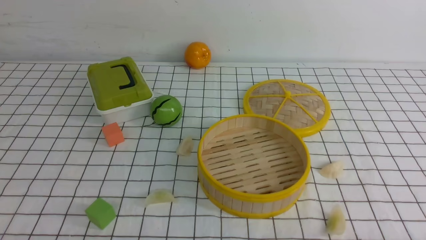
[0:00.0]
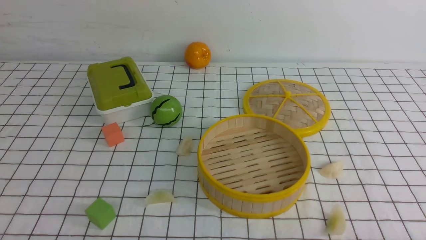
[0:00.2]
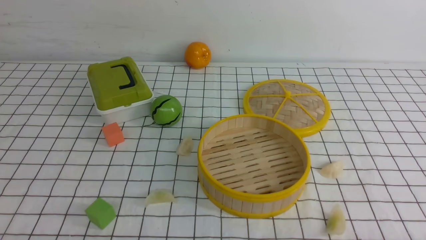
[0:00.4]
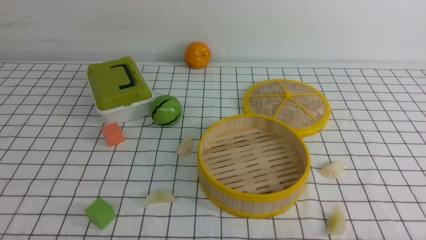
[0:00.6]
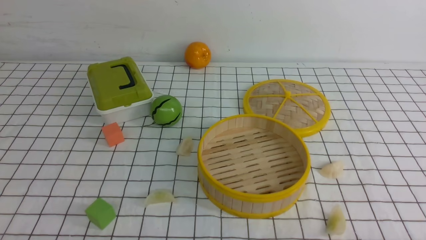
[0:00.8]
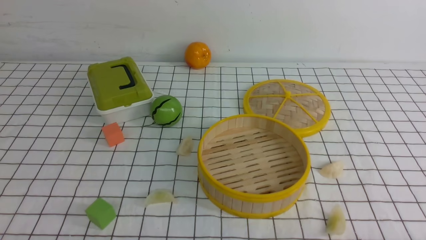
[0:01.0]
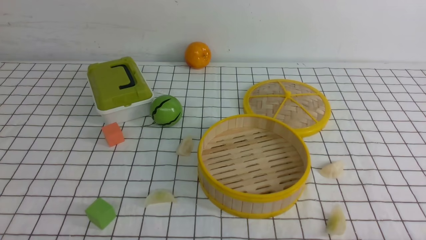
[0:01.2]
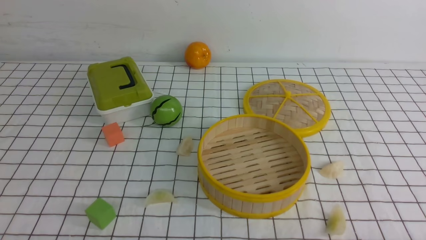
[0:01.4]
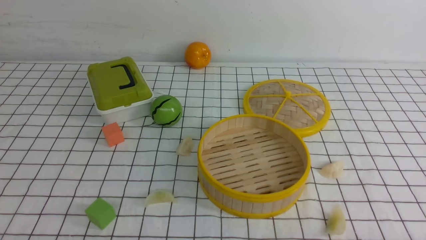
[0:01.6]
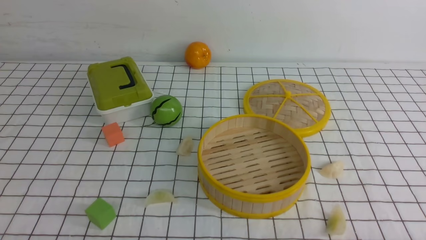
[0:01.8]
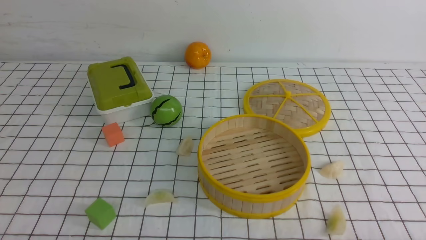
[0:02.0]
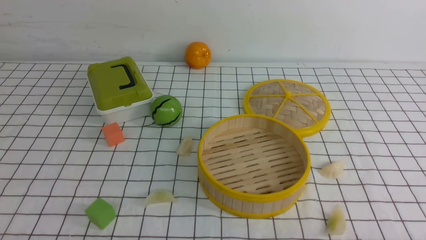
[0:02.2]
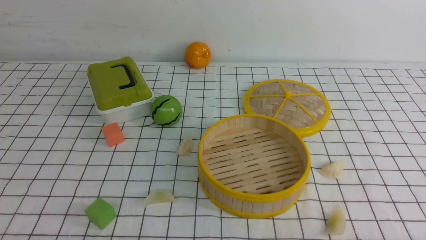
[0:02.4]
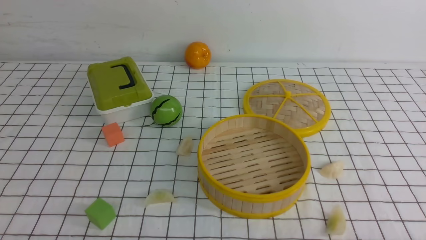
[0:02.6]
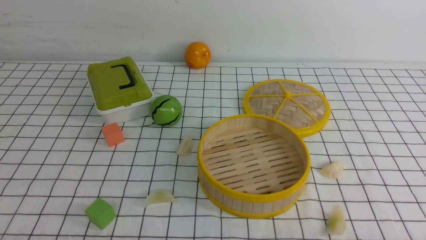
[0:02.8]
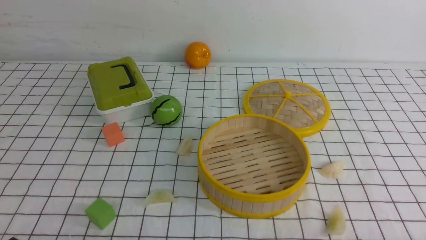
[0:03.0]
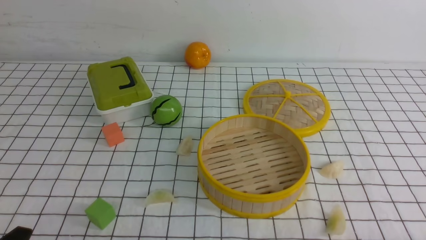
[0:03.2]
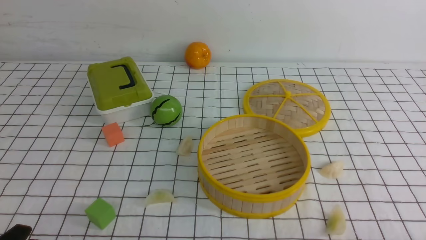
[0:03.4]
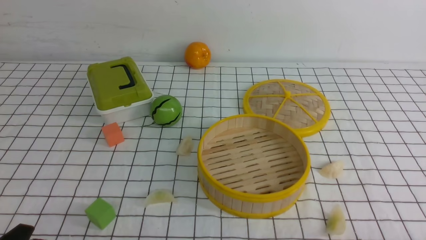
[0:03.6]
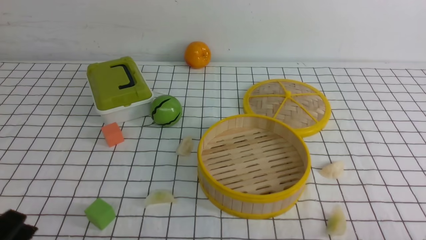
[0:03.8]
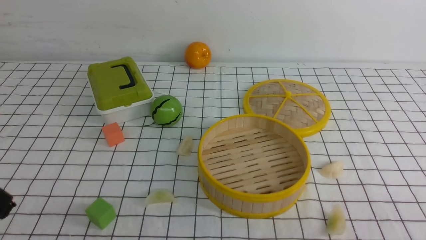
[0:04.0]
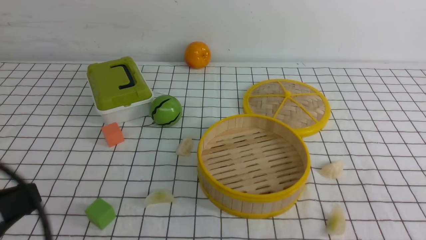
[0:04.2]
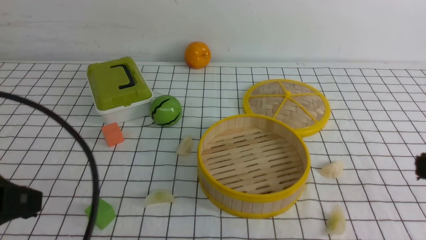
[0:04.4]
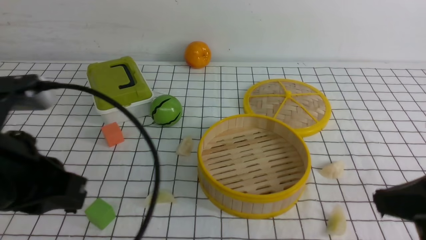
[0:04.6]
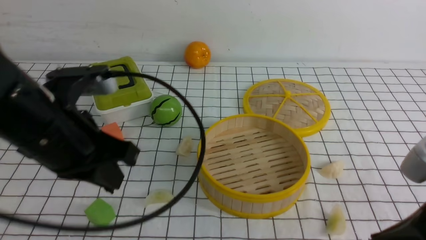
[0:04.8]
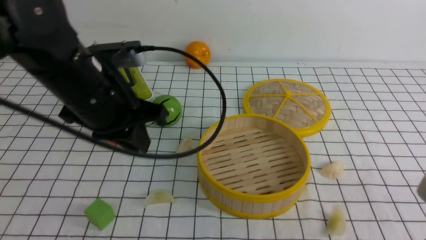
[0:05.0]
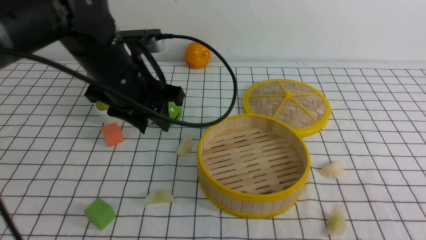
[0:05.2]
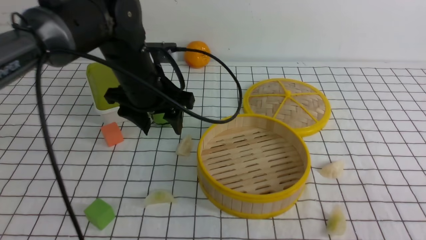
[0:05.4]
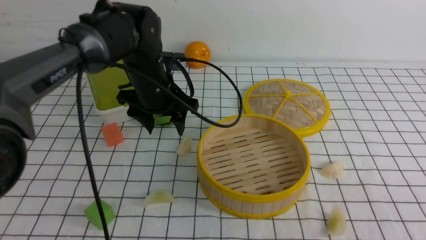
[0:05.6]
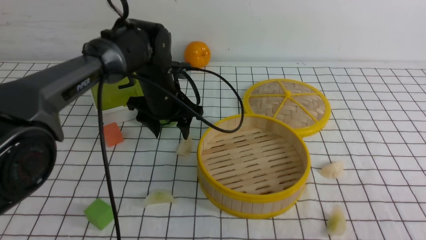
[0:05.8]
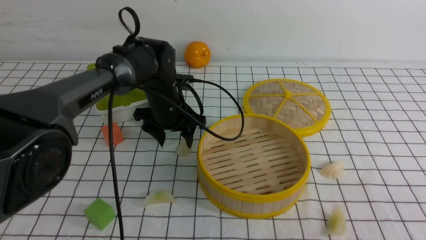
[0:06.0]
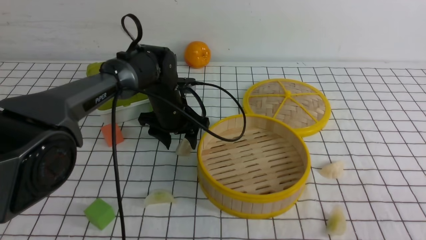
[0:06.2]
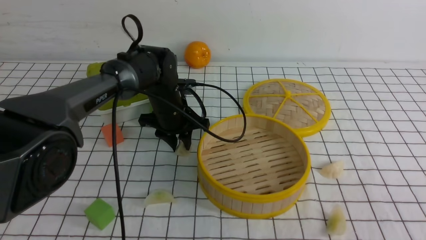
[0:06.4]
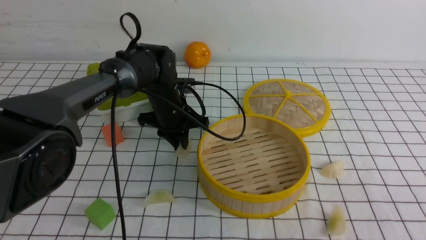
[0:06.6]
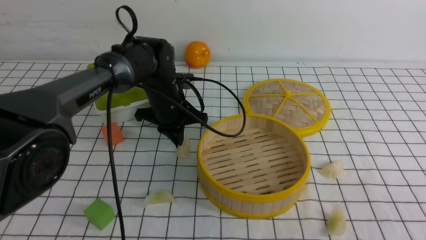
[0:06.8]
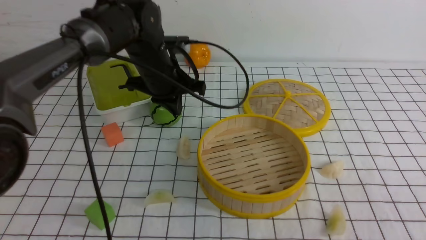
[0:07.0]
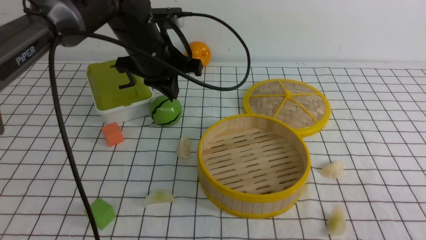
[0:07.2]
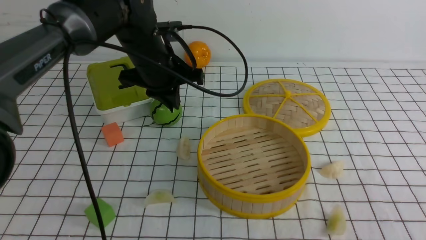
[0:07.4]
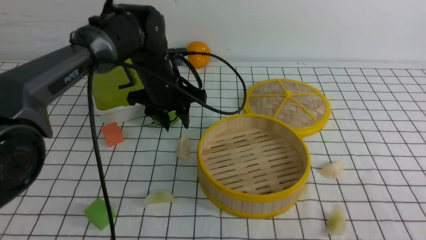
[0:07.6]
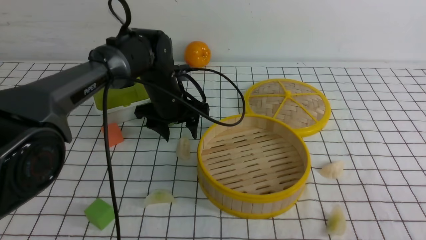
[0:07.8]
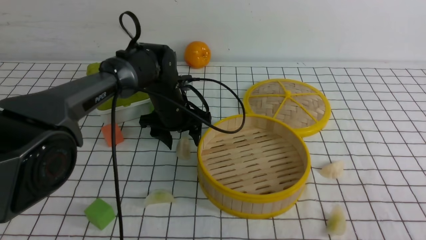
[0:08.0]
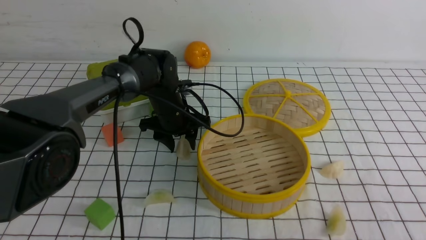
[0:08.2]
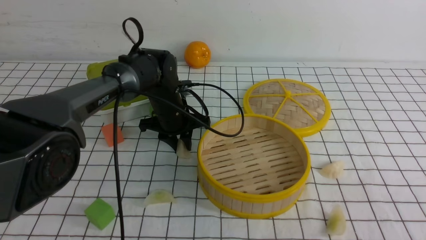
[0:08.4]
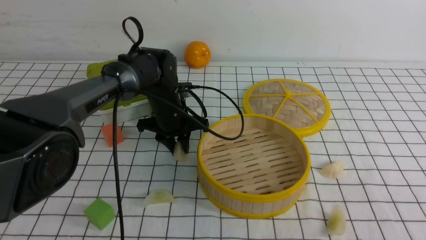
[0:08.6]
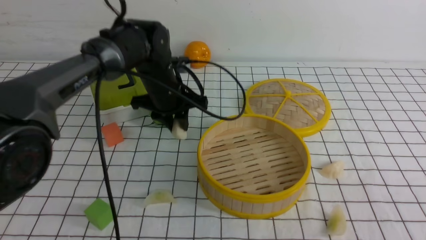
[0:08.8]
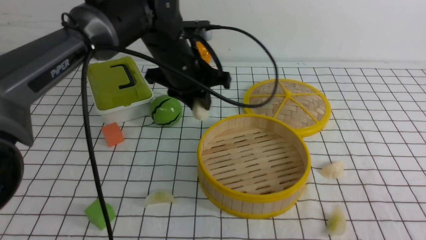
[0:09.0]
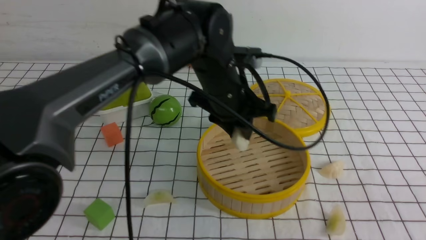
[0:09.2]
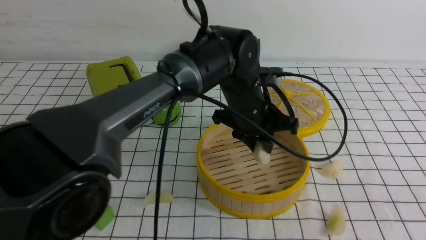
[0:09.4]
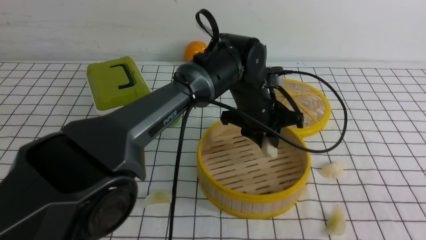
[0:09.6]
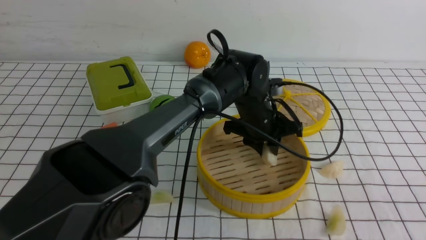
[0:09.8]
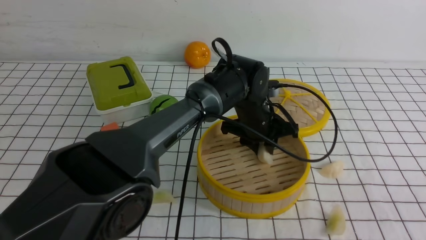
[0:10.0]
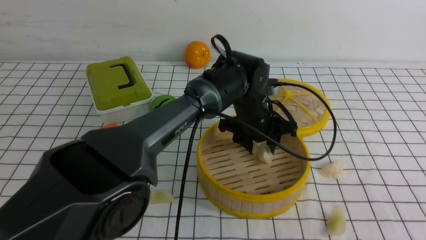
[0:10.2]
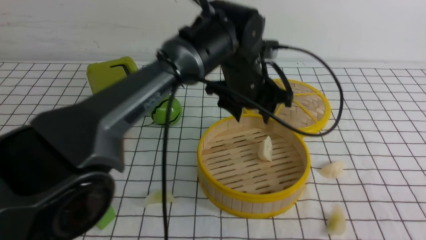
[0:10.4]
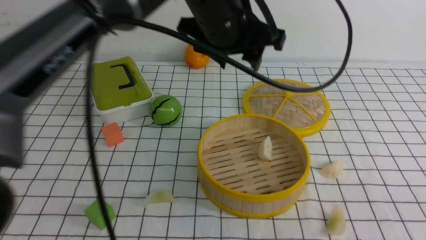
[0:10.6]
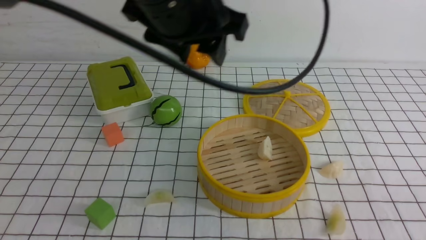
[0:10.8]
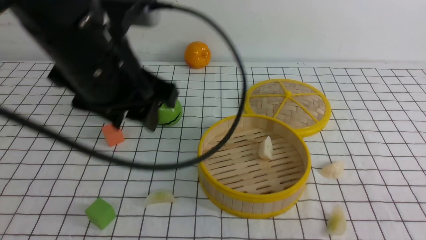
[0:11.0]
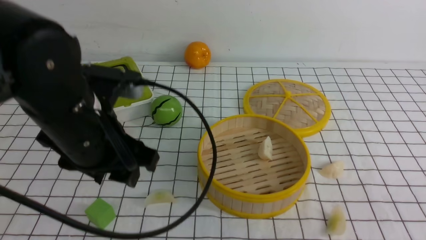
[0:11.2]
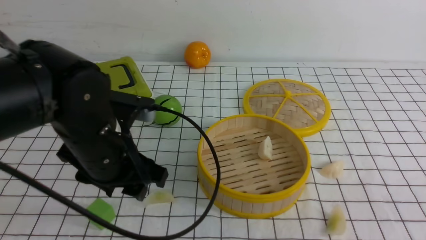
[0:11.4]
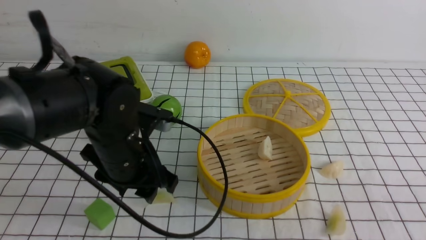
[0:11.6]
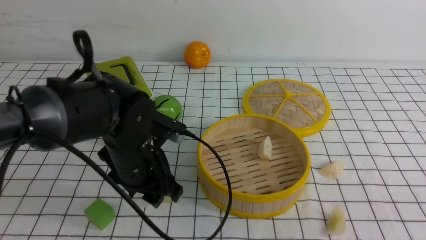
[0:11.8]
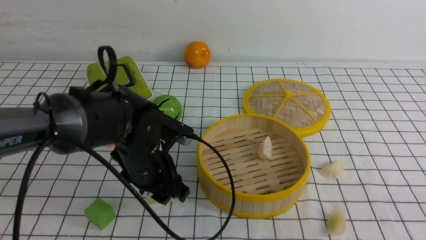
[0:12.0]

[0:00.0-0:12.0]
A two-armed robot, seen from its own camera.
Task of the whole recording: put the dumplings into the steamer on the table with the white tablecloth.
Step, 0.0 to 9.0 s: use the left arm to grab a dumpling.
Step, 9.2 to 10.6 s: use the left arm to put the dumpling into the steamer.
0.0 to 1.6 s: Both grippers stay about where they are.
3.0 to 4.4 s: The left gripper is displaced upward and forward by some 20 cm, and closes.
4.4 to 6.0 s: The left gripper heads forward, downward and to the right, covering some 40 cm, and opens up.
6.0 to 7.6 s: The left gripper heads upward, covering about 5 cm, and closes, then reopens.
7.6 to 9.0 s: The left gripper shifts some 5 cm to the right, and travels downward and back again, some 5 cm each way.
9.0 to 10.4 s: The left gripper goes approximately 5 cm to the right, travels downward and back again, approximately 10 cm each way, and opens up, while the right gripper changes place by roughly 5 cm.
10.4 to 12.0 s: The left gripper goes about 20 cm to the left, downward and backward.

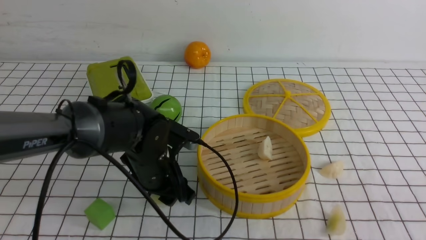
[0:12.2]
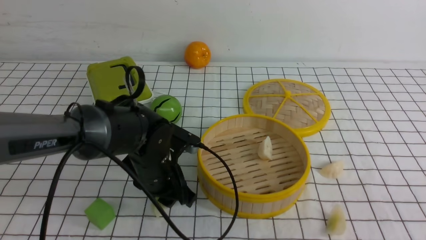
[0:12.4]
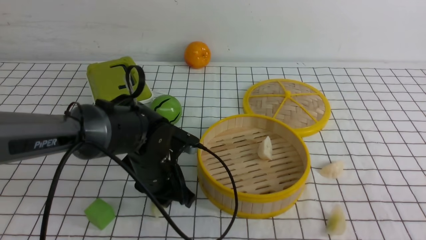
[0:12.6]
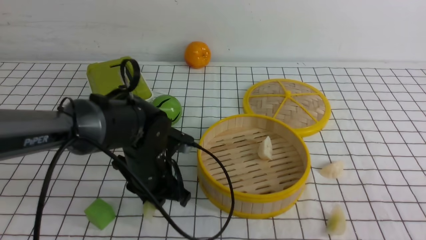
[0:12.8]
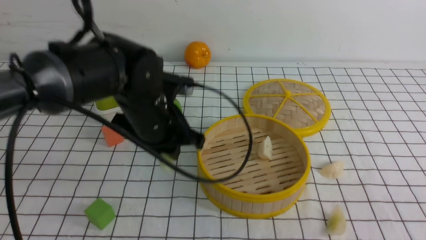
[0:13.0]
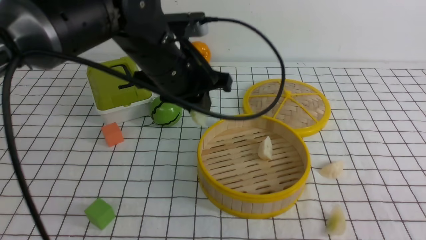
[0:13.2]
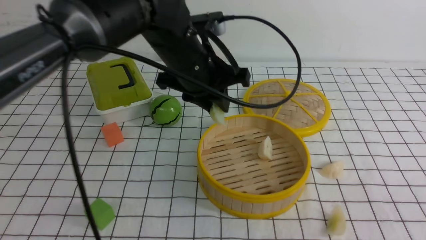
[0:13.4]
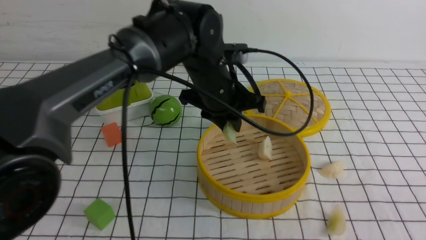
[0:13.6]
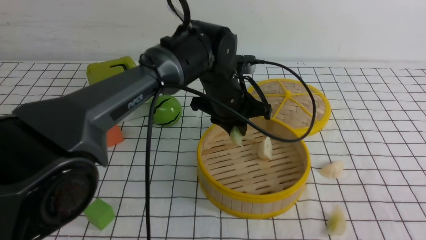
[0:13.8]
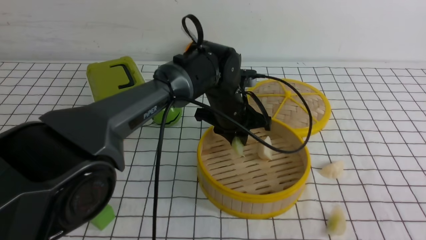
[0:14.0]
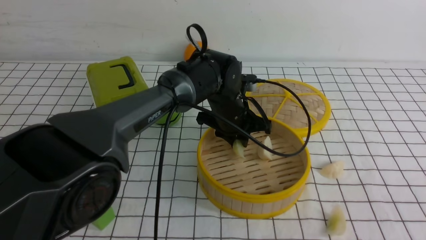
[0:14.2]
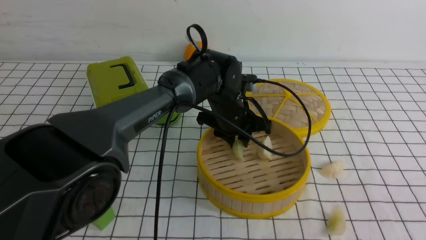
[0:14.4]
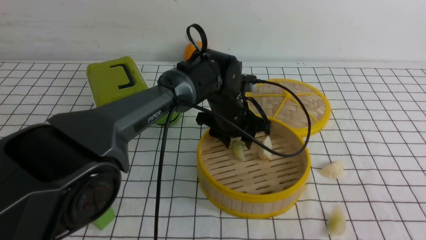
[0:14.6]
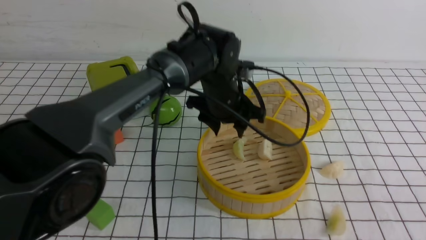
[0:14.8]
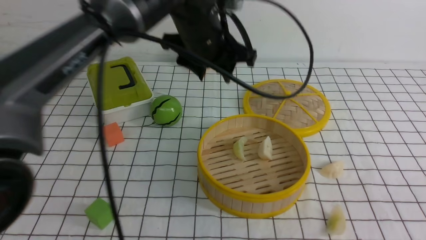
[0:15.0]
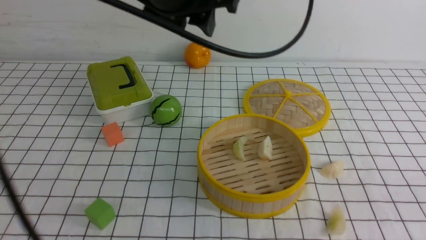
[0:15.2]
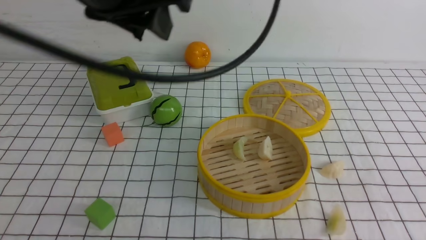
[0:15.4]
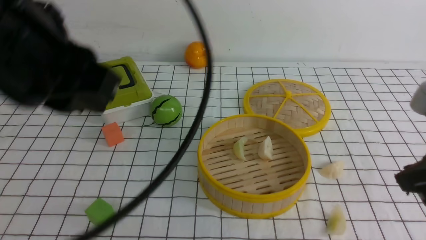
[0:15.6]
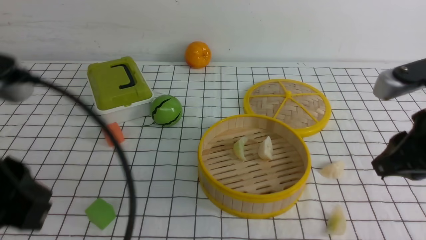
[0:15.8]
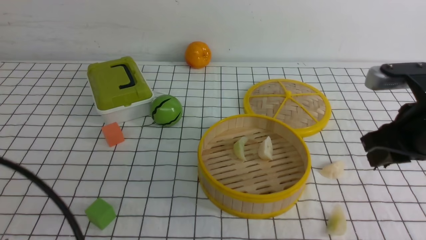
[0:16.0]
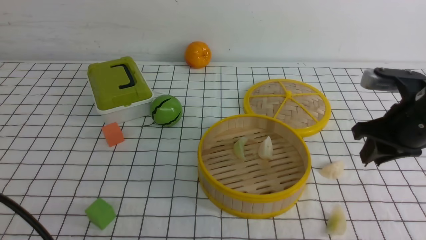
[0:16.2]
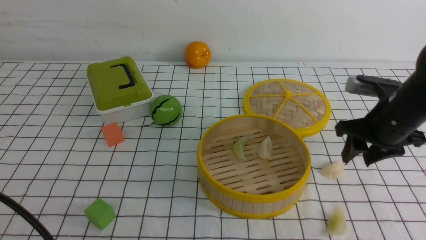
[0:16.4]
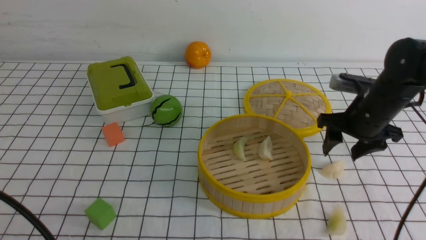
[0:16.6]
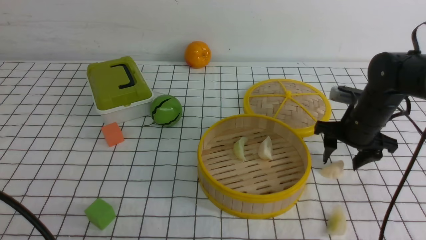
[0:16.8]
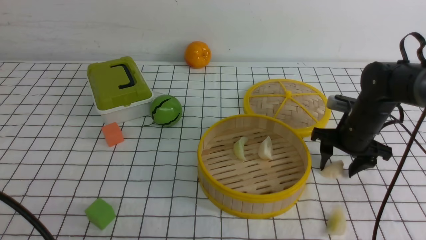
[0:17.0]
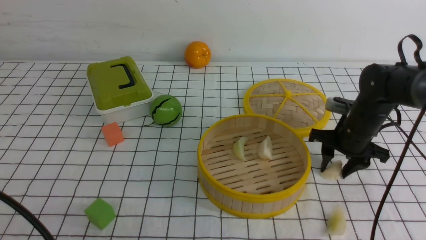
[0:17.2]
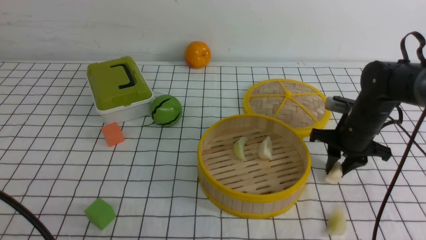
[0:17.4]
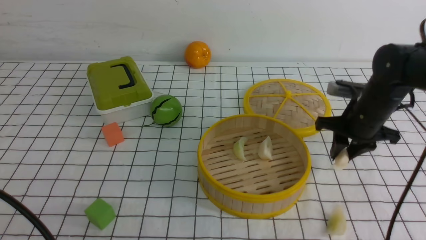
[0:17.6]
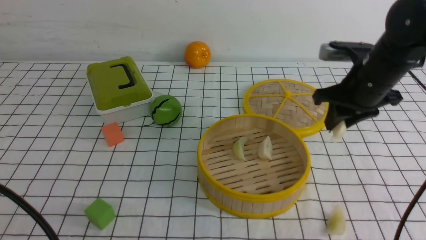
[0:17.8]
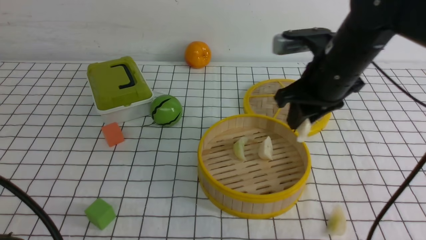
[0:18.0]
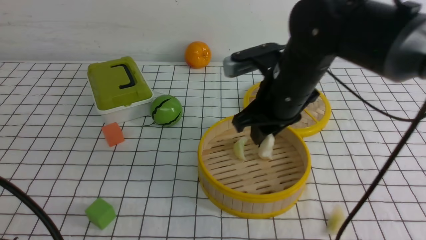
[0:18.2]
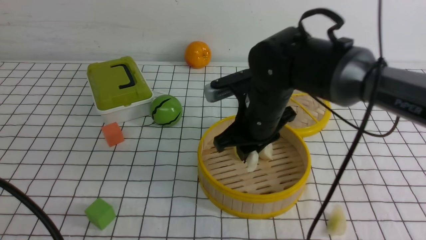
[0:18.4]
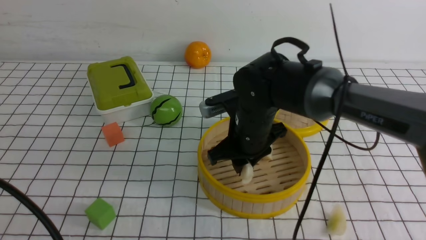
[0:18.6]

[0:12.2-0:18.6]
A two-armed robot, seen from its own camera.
Task of the whole recording: put the dumplings into the steamer on the table with the white tablecloth.
Step, 13.2 to 15.4 s: use the left arm to put the dumpling into the steamer.
Step, 15.8 to 17.6 s: use the right arm to grab a dumpling.
12.2 to 13.8 s: The left gripper travels to the right, forward and upward by roughly 15 cm, and closes.
13.8 to 15.4 s: The right gripper is displaced forward by approximately 10 cm, while the left gripper goes roughly 30 cm upward, backward and to the left.
15.4 to 17.0 s: The left gripper is displaced backward, downward and to the left by approximately 25 cm, and closes; the right gripper goes approximately 35 cm forward and downward, and opens.
17.0 to 18.6 s: The right gripper is displaced to the left by some 20 cm, and closes.
